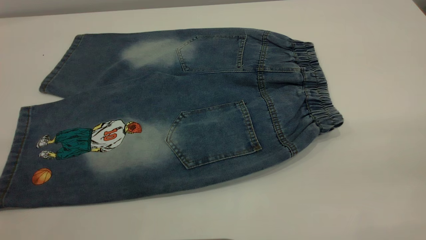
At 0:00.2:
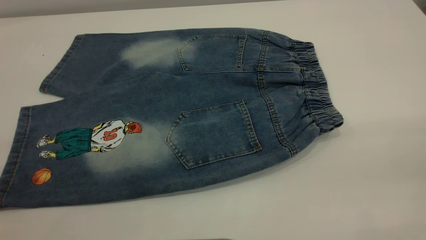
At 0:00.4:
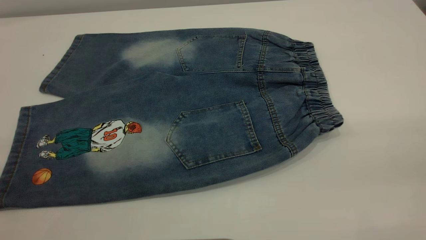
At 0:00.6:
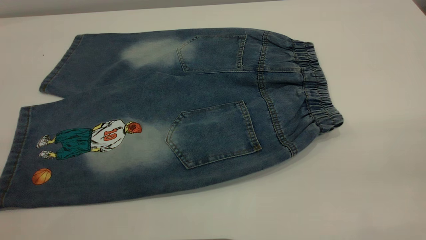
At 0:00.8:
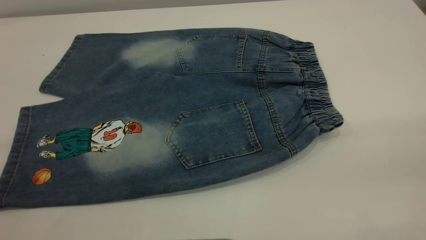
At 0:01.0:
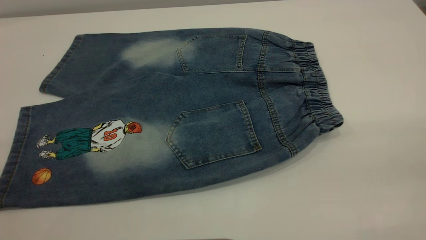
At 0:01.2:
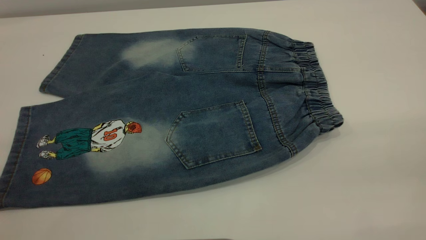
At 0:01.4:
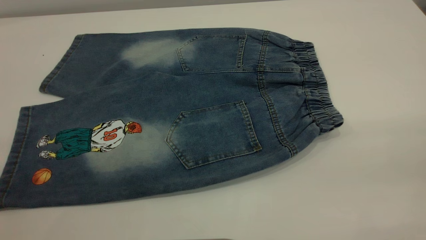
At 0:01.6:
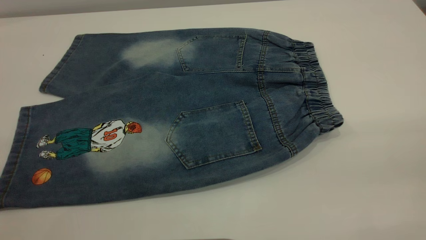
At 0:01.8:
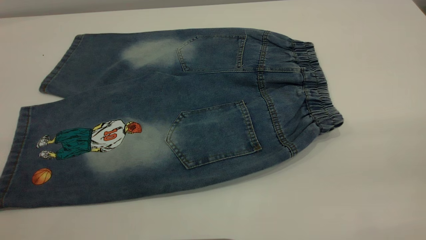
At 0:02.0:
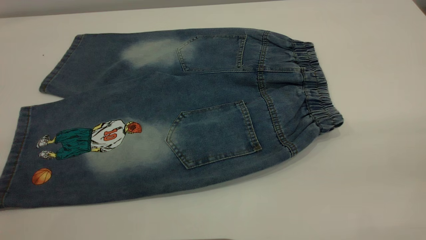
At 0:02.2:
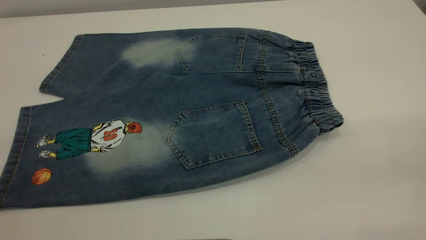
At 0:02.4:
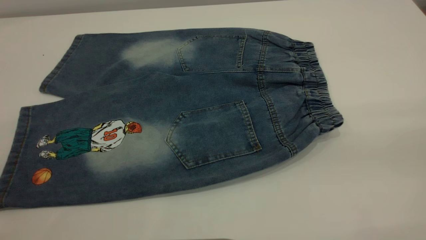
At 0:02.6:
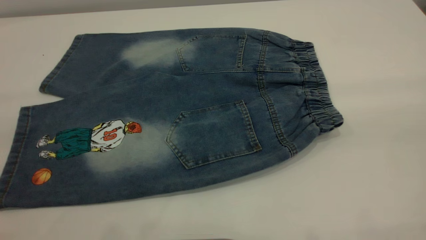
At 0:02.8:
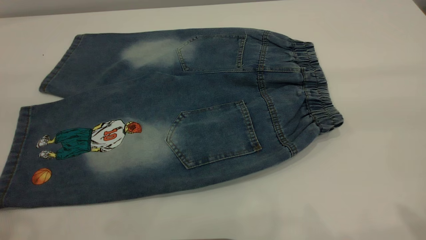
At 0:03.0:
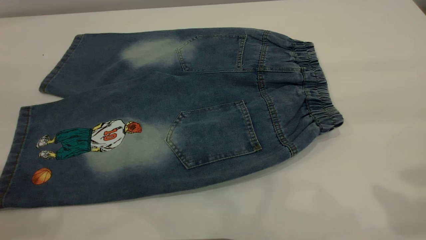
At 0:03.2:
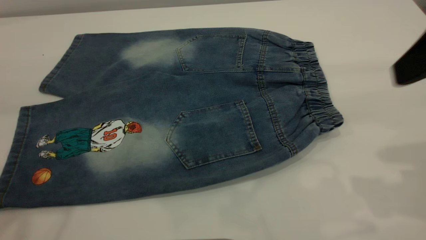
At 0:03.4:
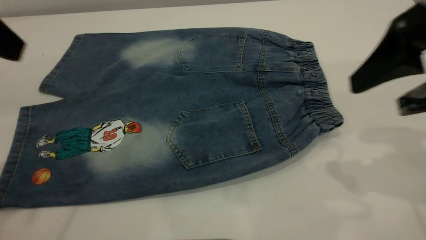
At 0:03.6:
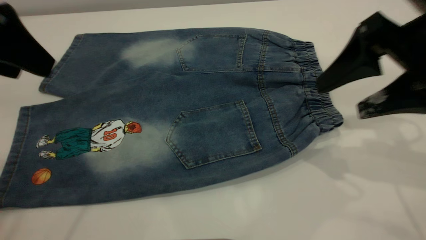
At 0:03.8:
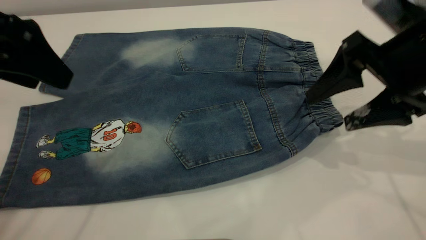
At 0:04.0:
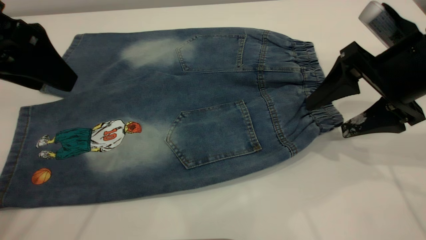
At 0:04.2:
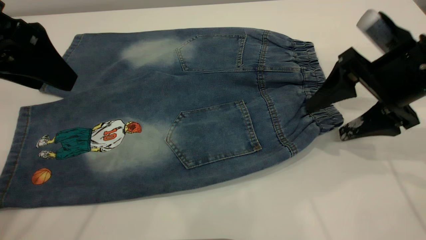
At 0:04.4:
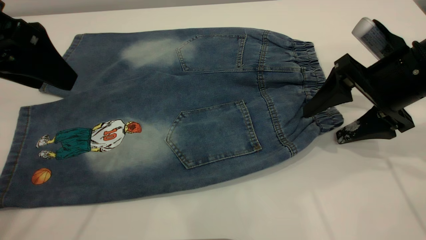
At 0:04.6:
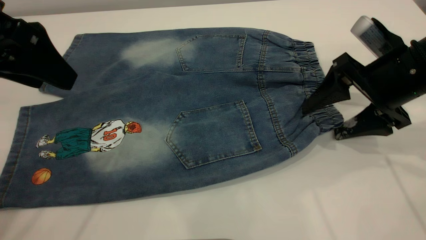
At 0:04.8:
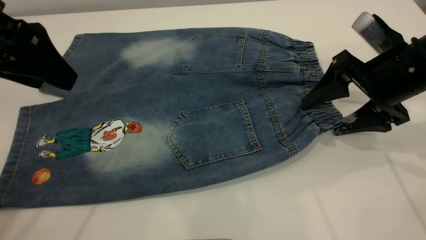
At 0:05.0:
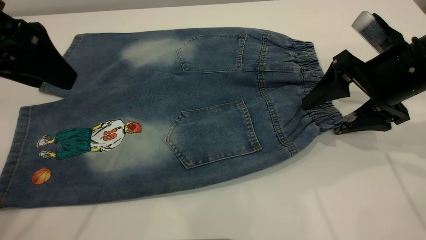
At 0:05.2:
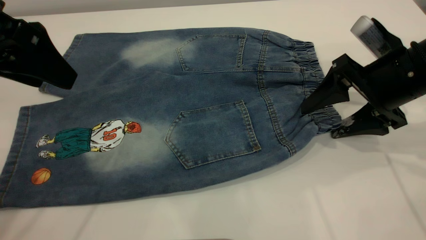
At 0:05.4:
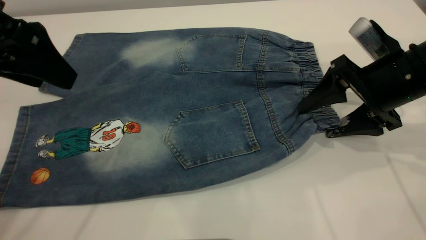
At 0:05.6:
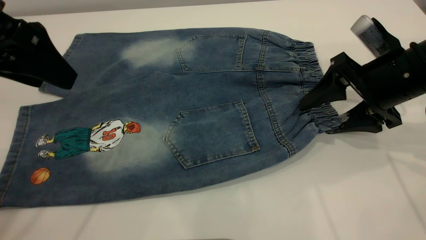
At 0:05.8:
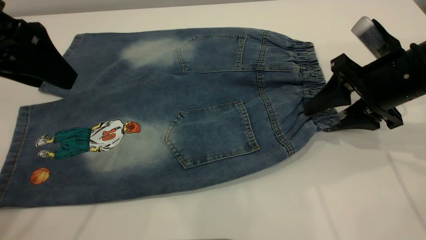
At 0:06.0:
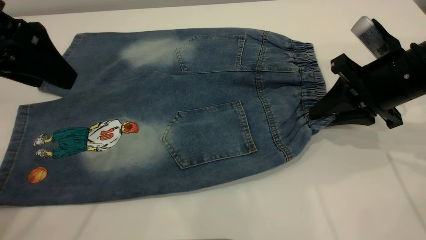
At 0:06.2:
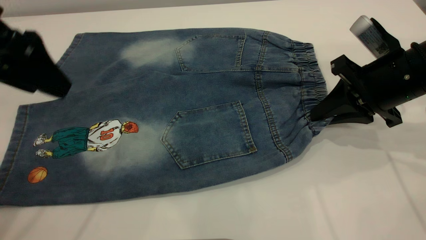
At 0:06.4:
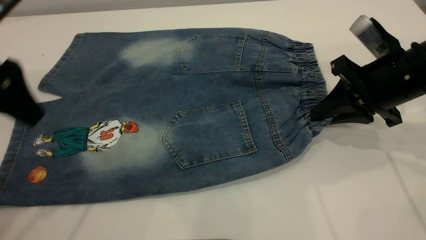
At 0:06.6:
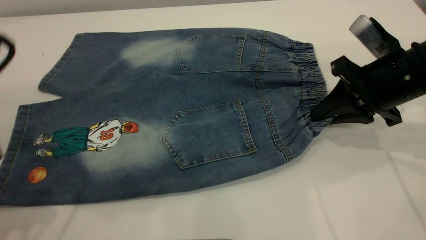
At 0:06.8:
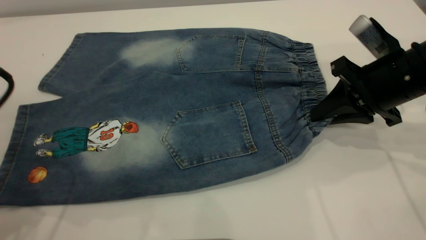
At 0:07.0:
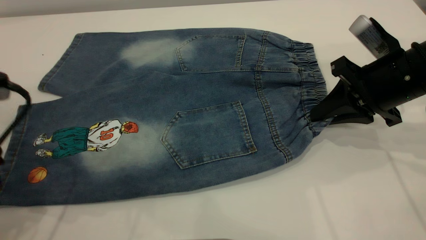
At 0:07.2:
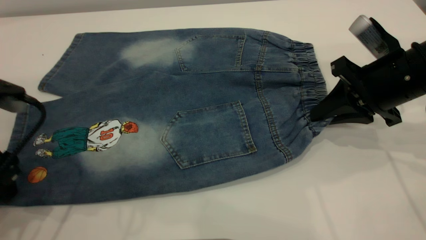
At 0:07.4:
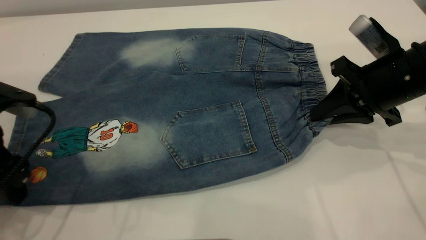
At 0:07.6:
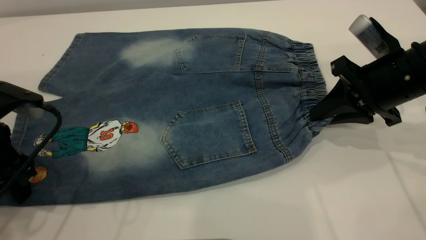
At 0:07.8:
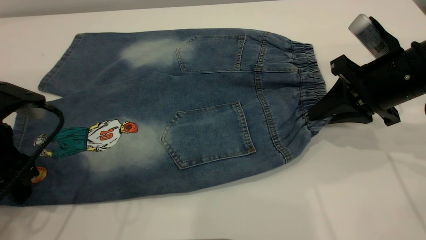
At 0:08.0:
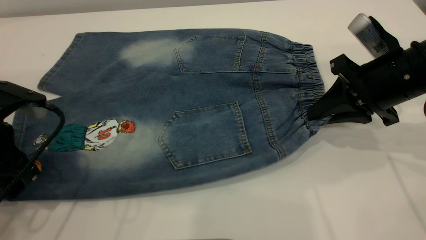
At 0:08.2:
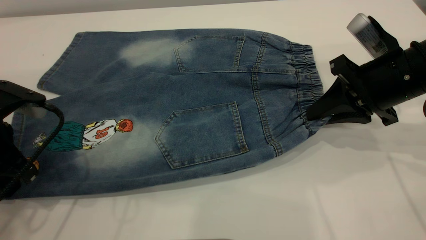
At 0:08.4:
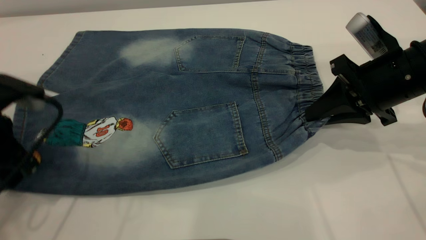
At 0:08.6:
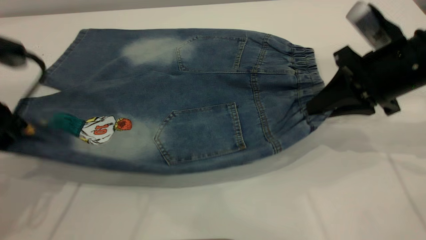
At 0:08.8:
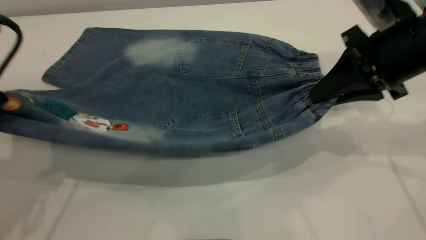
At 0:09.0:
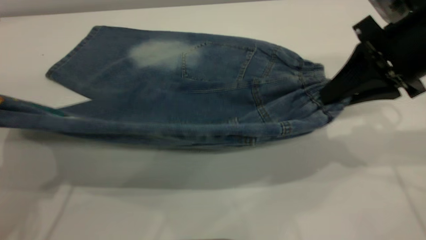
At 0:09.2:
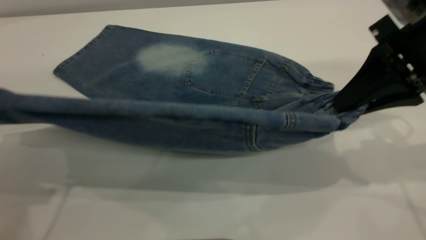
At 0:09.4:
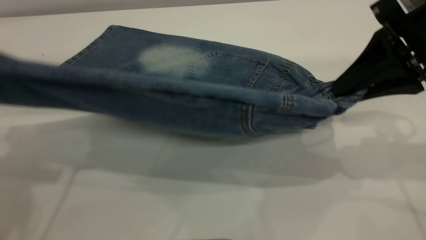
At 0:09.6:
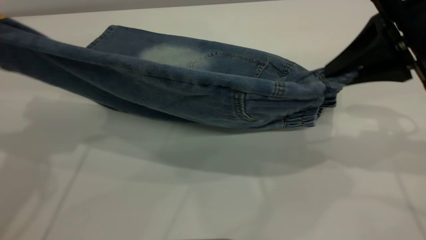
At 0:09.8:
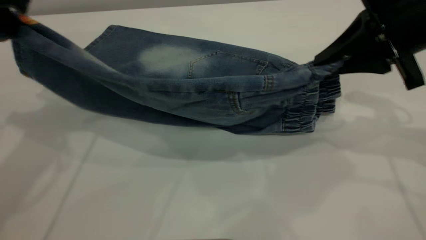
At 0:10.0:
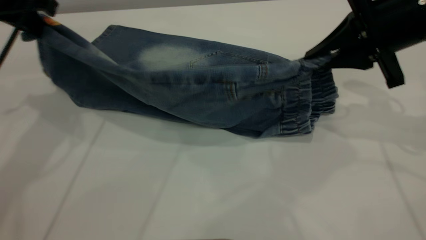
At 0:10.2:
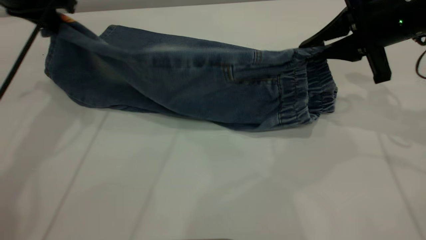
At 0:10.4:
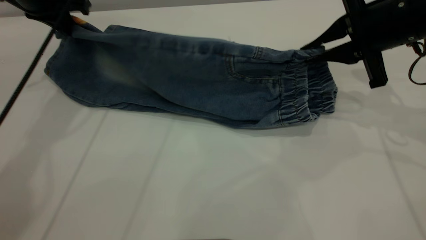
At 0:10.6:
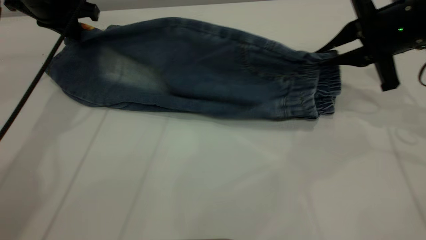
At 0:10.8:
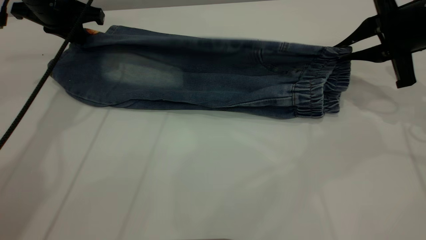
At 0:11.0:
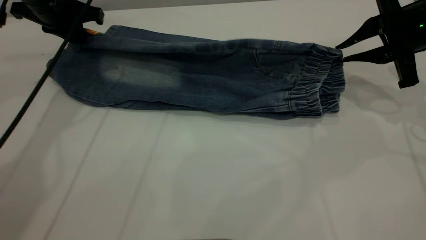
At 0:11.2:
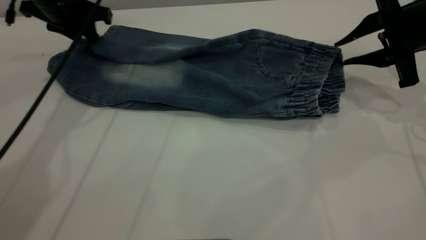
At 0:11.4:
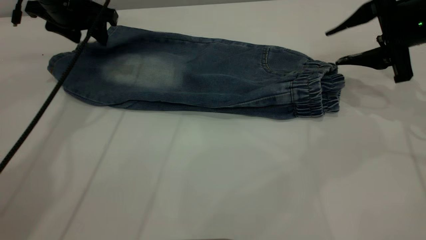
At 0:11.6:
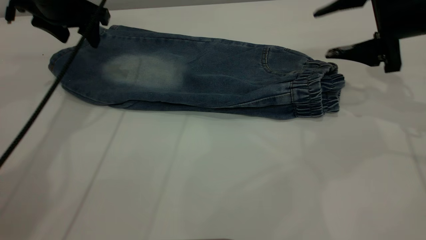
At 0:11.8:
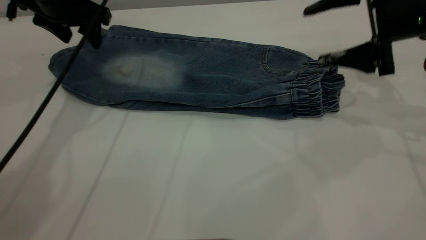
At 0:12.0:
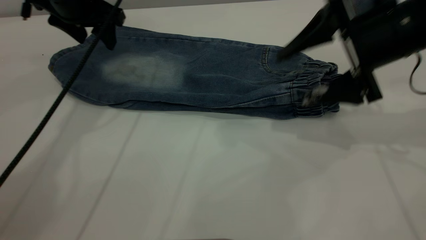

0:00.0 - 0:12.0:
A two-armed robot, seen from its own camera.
Step, 0:00.0 - 0:11.6: Fold the bottom of the pants upward.
0:00.0 - 0:01.6: Both grippers stay about where they are.
0:03.0 - 0:04.4: The right gripper moves downward and forward, some 20 cm, while the left gripper is displaced downward and forward by some 10 cm.
0:04.4 - 0:06.0: The right gripper closes up.
0:06.0 - 0:07.6: The left gripper goes roughly 15 cm downward.
0:07.6 - 0:09.0: The left gripper is displaced upward by about 10 cm, and closes its fingers. The right gripper goes about 10 cm upward.
0:09.0 - 0:10.4: The left gripper travels forward by approximately 20 cm. The right gripper is displaced forward by about 5 cm.
0:10.4 - 0:12.0: The right gripper opens. Meanwhile the left gripper heads to the right, covering about 5 cm, and opens up.

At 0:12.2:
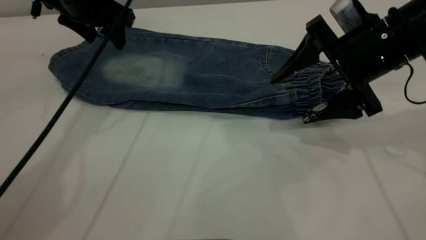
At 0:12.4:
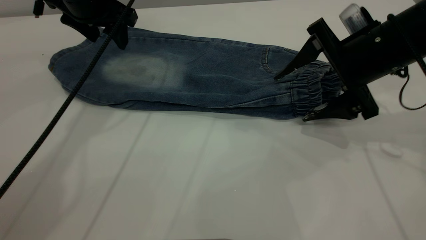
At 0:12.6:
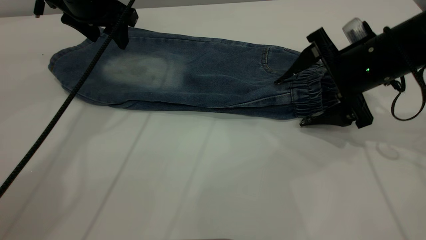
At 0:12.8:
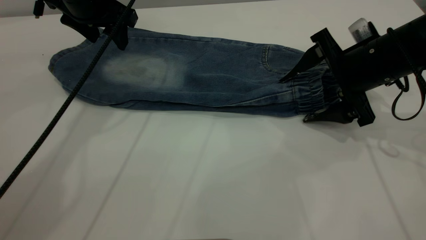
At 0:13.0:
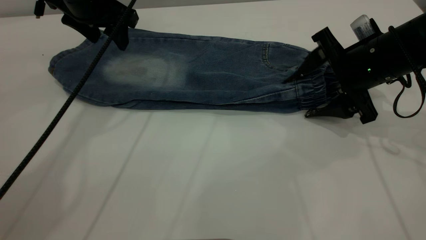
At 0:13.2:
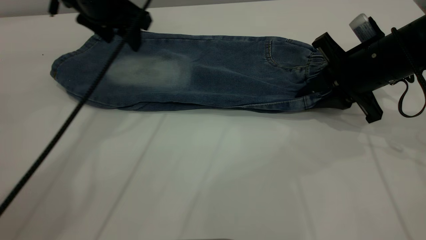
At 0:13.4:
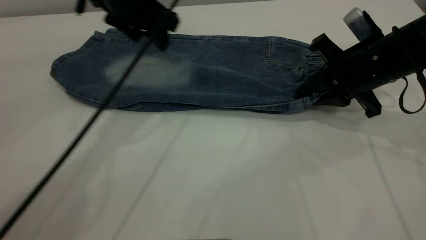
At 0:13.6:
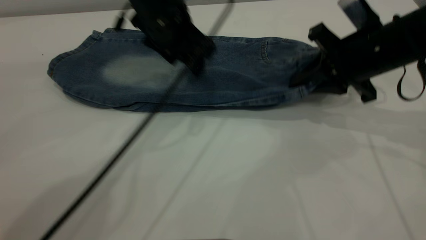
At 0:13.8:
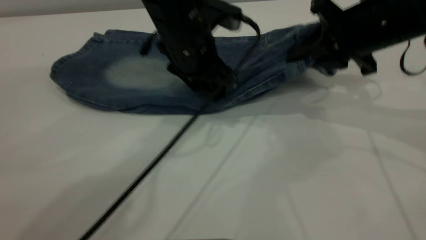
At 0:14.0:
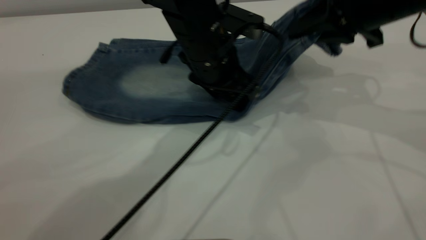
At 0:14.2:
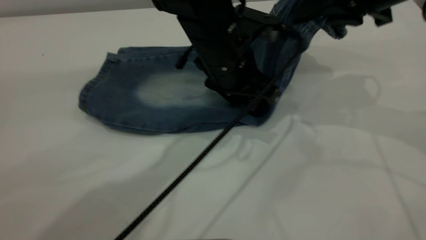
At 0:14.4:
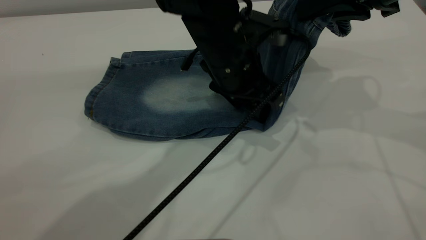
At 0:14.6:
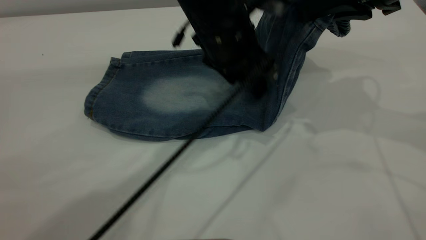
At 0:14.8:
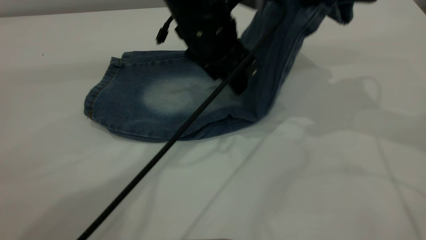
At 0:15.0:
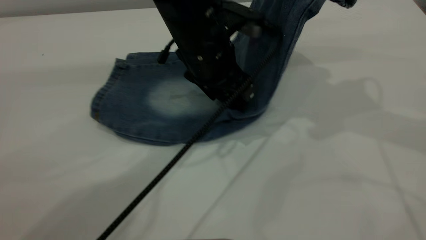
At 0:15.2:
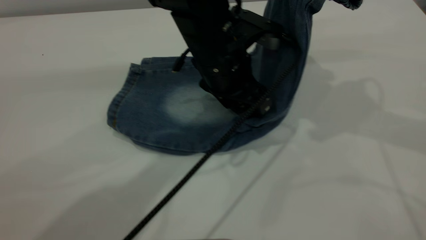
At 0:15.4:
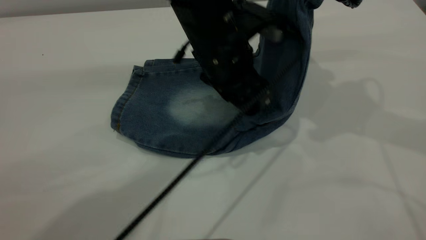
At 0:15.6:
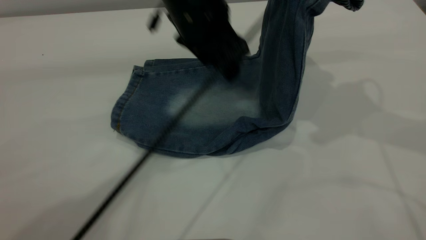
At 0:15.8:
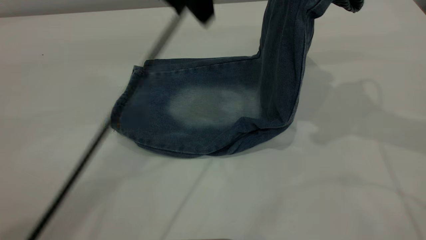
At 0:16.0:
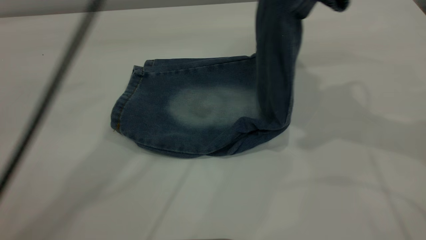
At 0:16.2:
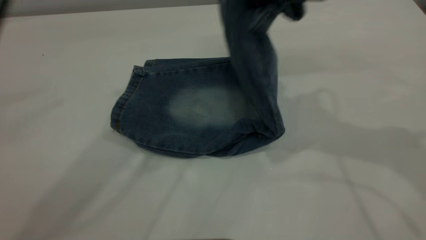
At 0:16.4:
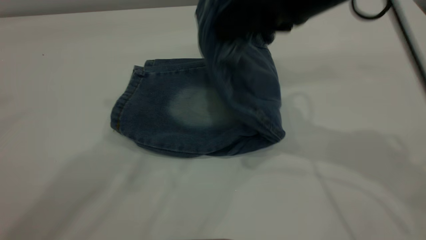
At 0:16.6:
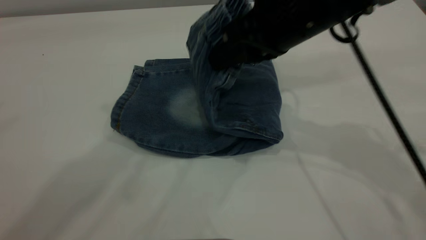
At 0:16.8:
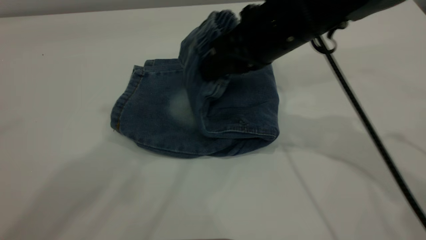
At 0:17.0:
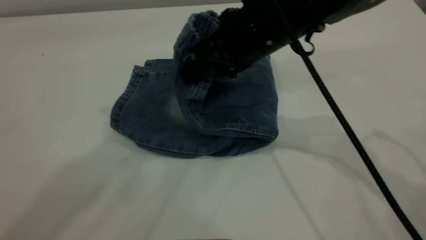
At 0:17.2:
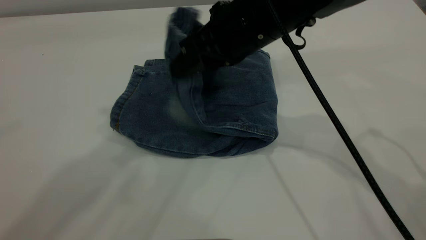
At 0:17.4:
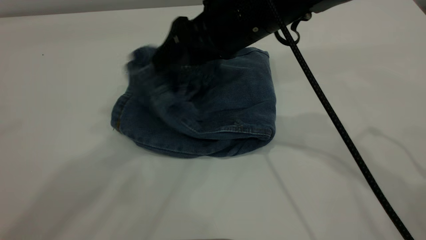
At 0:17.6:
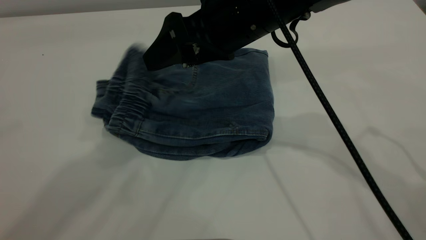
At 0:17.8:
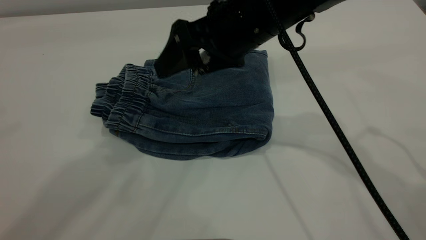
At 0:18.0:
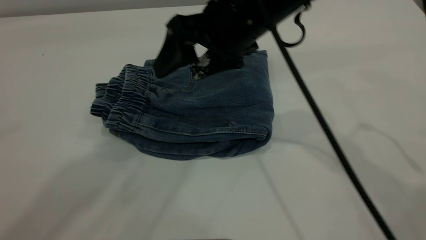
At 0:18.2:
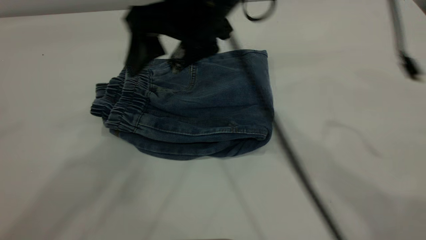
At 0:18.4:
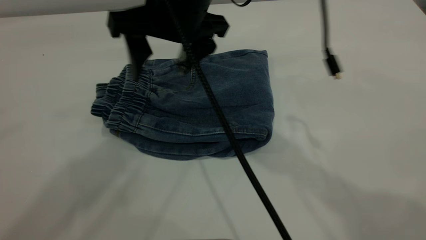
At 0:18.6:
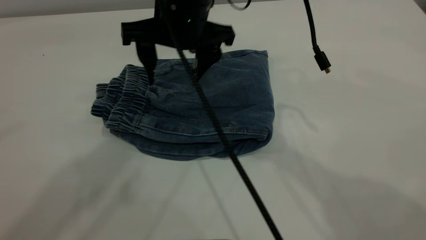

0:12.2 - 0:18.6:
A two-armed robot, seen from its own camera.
Step, 0:12.2 - 0:17.6: Fold your pants from right to left.
0:12.2 - 0:13.8: The right gripper closes up, while the left gripper heads to the right, backward and downward, covering approximately 20 cm.
0:13.8 - 0:15.4: The left gripper ends up roughly 5 cm from where it was; the right gripper moves upward, about 10 cm.
0:15.4 - 0:17.0: The right gripper shifts some 20 cm to the left and downward. The left gripper goes approximately 35 cm upward and to the left.
0:17.0 - 0:18.6: The right gripper travels to the left by roughly 10 cm, and opens its fingers.
